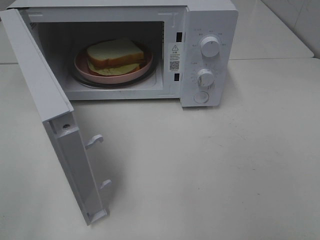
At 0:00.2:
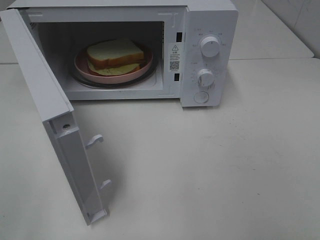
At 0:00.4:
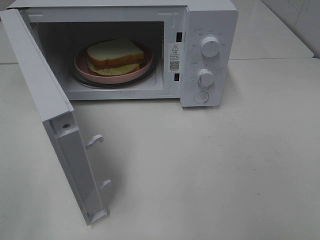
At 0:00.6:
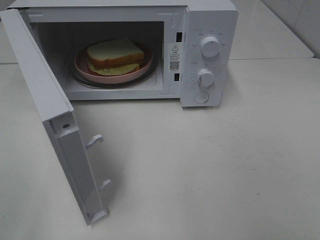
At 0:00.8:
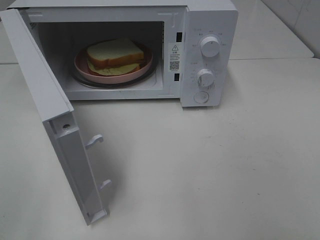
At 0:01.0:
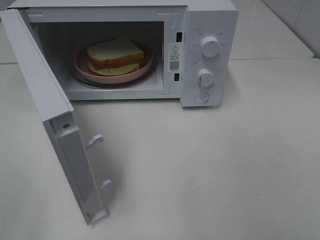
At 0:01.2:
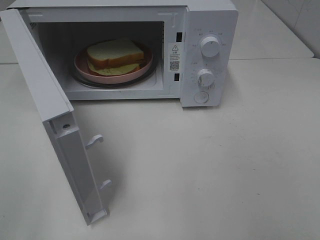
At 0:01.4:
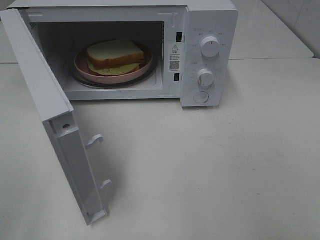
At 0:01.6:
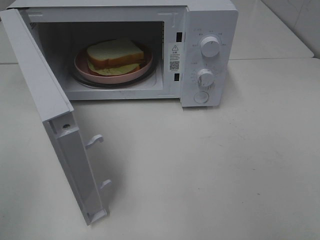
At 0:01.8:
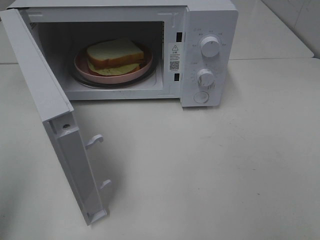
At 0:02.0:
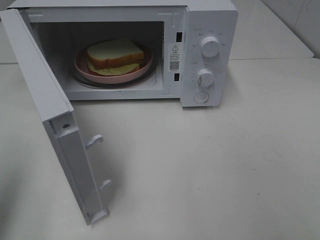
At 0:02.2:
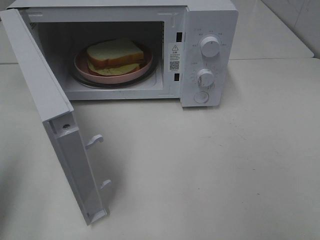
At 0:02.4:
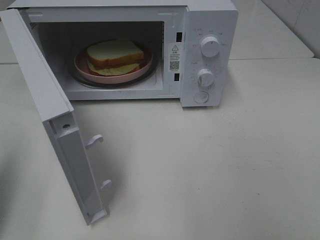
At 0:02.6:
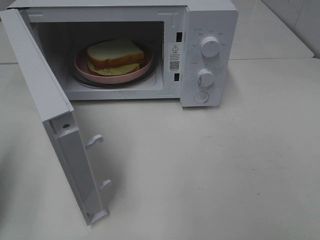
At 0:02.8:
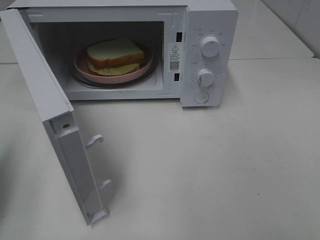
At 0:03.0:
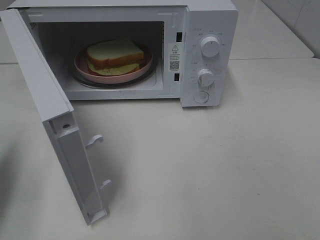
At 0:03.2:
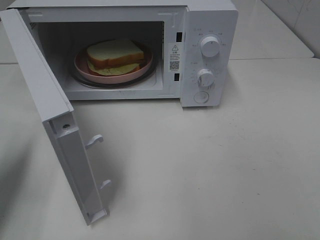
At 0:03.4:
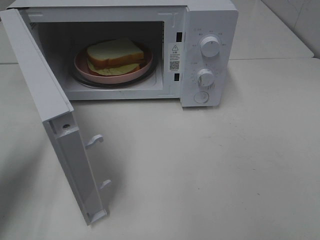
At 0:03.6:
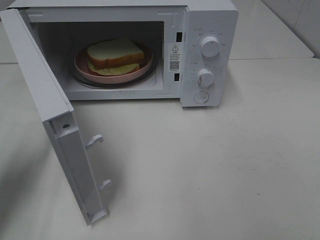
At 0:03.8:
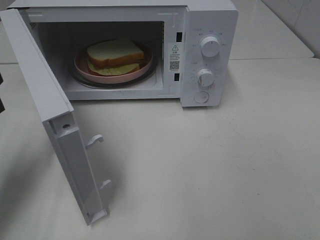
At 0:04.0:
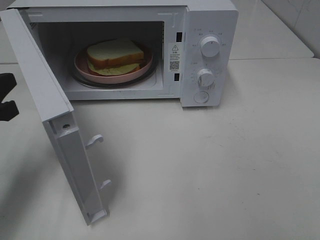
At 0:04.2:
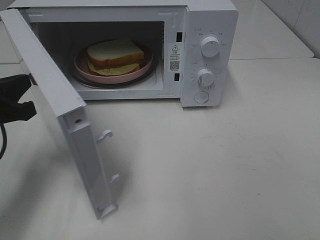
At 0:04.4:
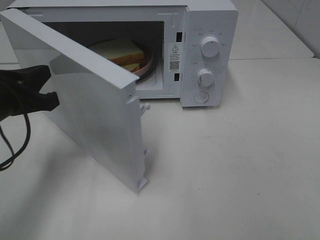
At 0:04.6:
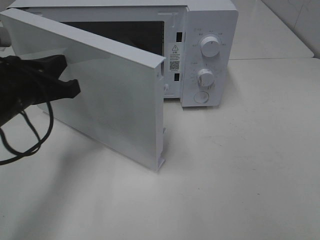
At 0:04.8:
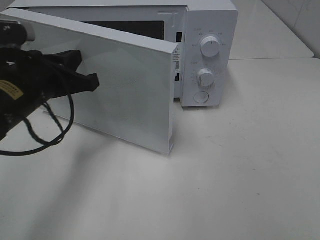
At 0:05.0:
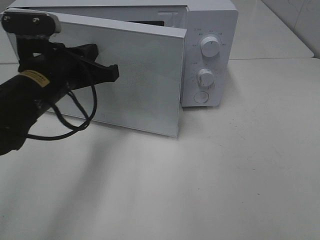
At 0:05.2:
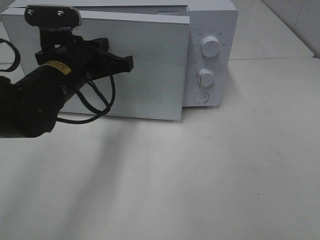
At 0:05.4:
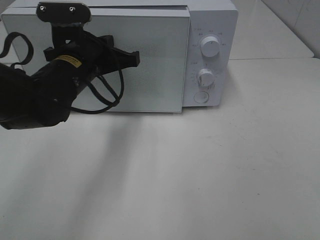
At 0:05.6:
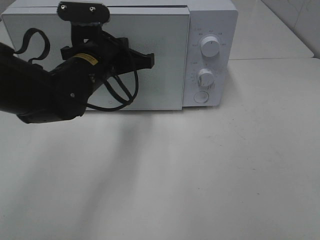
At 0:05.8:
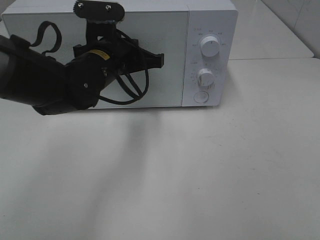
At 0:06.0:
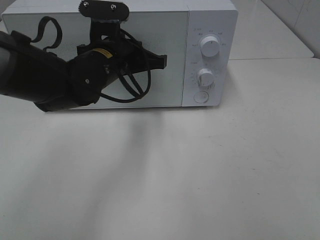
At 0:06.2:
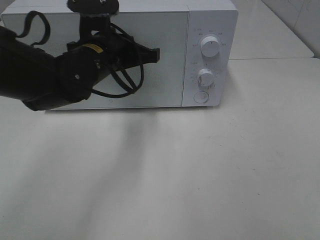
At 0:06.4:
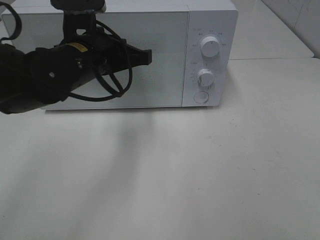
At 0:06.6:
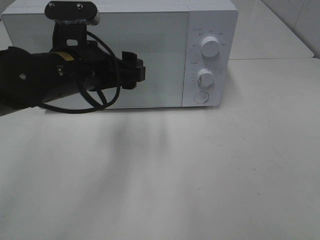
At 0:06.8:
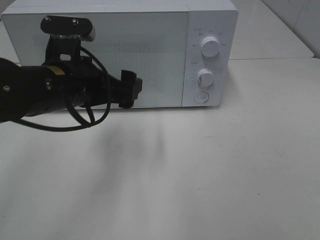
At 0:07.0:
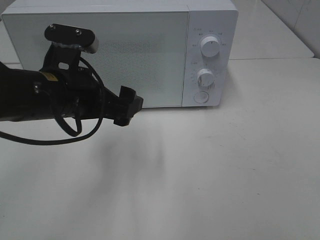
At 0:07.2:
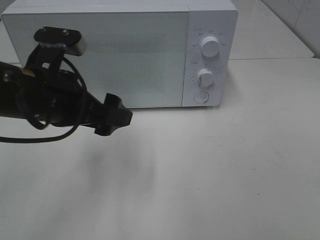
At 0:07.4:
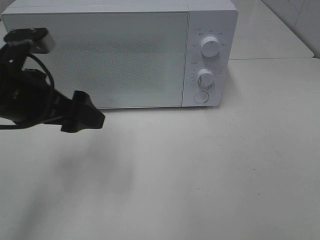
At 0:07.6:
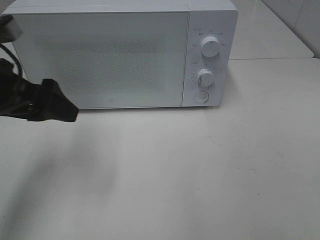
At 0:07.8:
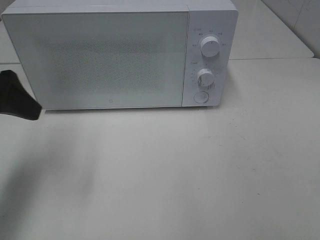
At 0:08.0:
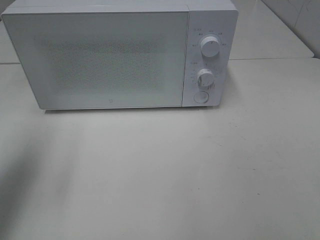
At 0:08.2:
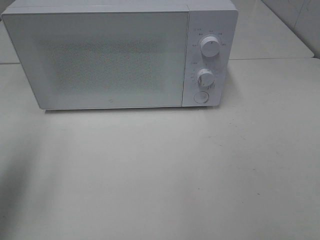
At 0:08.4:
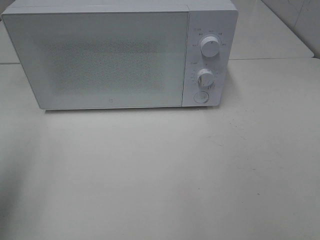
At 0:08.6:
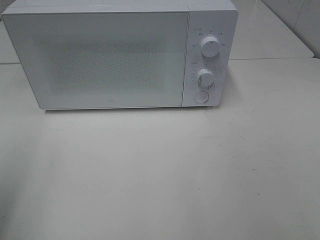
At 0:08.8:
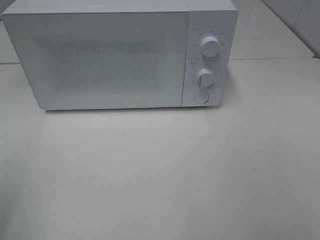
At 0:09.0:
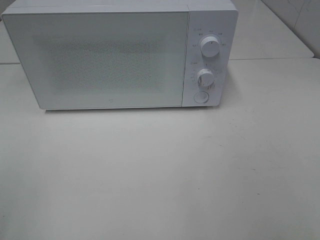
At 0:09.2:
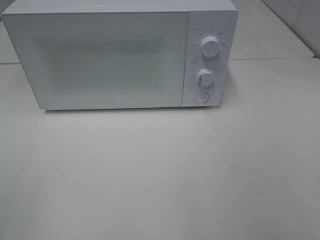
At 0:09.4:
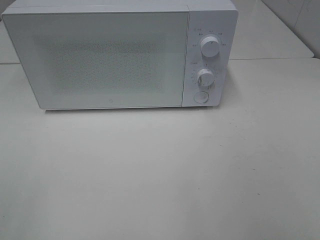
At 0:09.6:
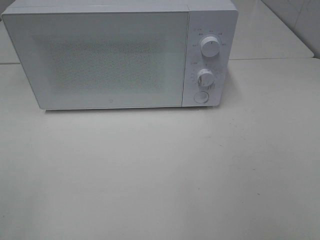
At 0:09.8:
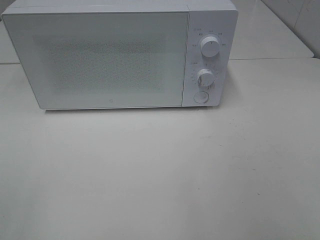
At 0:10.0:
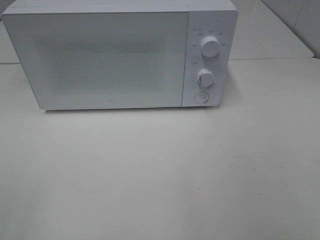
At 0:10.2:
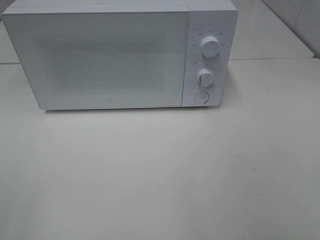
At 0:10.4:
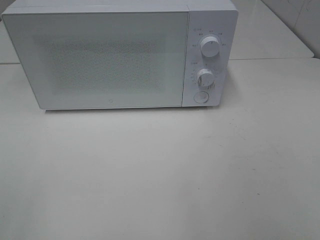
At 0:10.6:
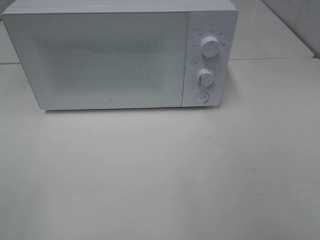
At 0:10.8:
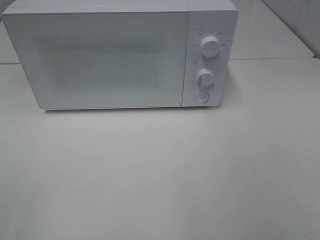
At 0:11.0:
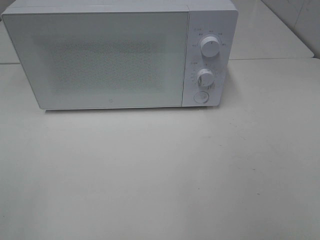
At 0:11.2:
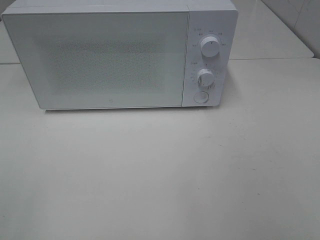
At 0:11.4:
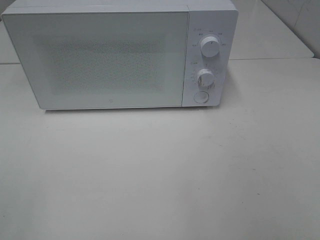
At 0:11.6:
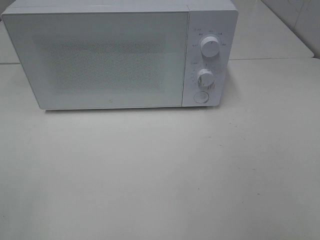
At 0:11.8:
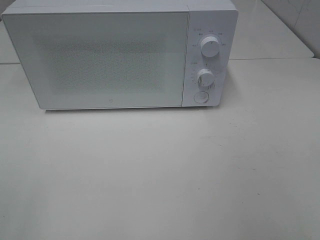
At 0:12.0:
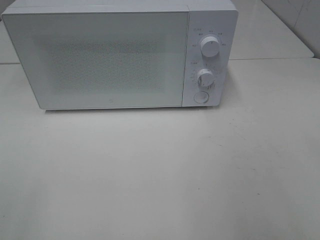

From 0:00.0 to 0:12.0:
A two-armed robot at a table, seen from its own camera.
Task of the whole recording: Heat Sandwich.
Step, from 0:00.0 to 0:06.6: Left hand: close the microwave door.
From 0:01.6 to 0:03.0: The left gripper travels forward and downward by approximately 15 cm, and closes its fingers.
From 0:03.0 to 0:04.4: The left gripper goes about 10 cm to the right and forward.
From 0:04.4 to 0:06.0: The left gripper travels to the right and forward by approximately 20 cm.
From 0:06.0 to 0:07.6: The left gripper goes about 20 cm to the left and backward, and opens.
From 0:07.6 to 0:09.0: The left gripper is displaced backward and to the left by about 25 cm.

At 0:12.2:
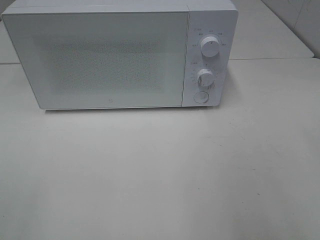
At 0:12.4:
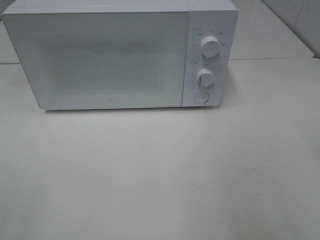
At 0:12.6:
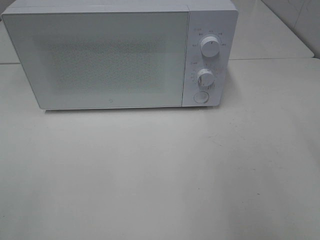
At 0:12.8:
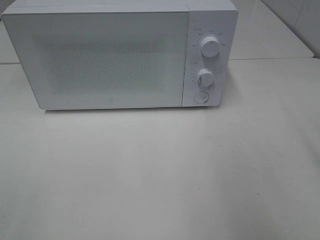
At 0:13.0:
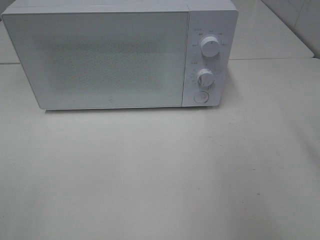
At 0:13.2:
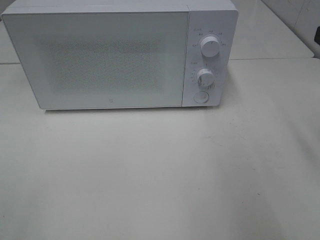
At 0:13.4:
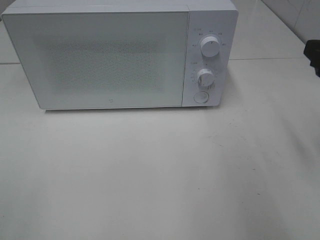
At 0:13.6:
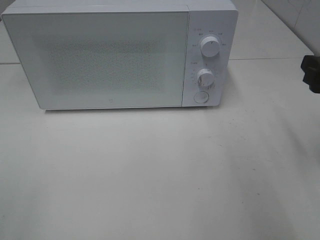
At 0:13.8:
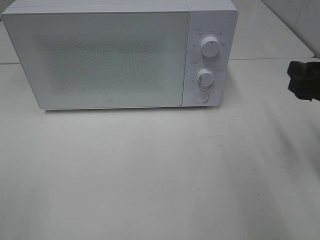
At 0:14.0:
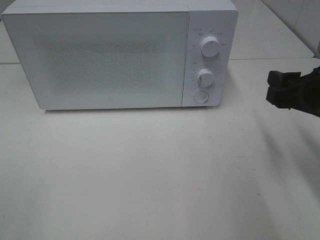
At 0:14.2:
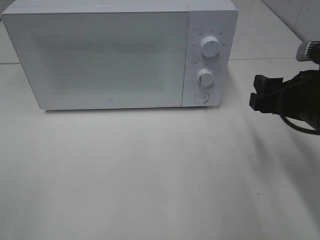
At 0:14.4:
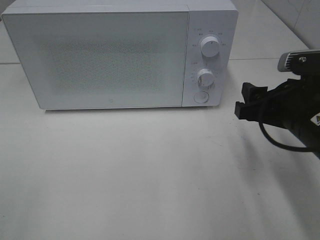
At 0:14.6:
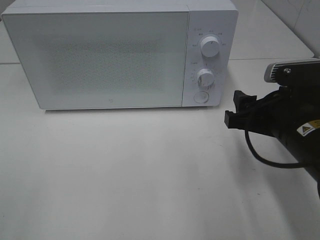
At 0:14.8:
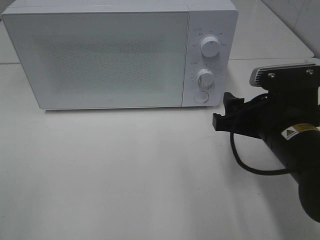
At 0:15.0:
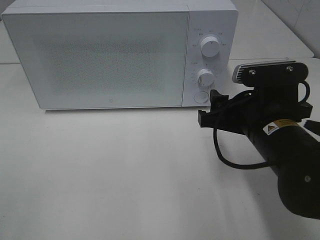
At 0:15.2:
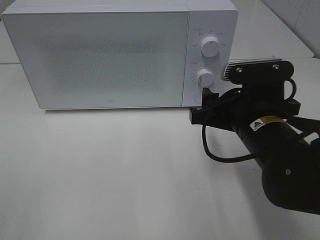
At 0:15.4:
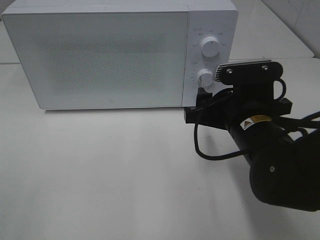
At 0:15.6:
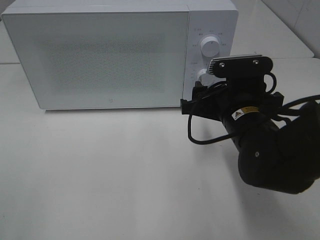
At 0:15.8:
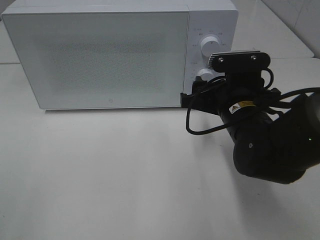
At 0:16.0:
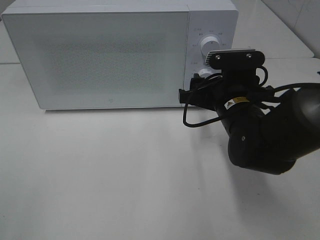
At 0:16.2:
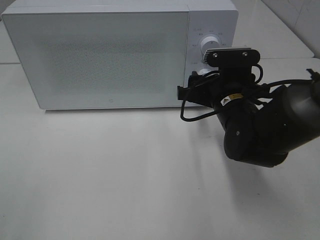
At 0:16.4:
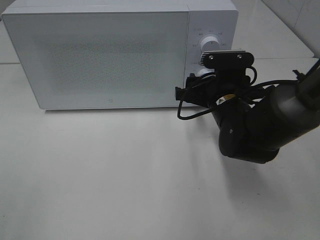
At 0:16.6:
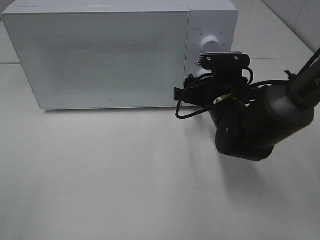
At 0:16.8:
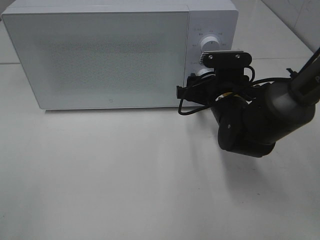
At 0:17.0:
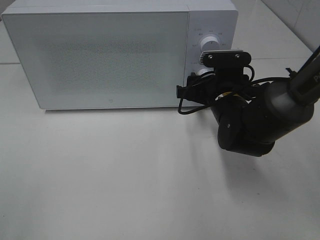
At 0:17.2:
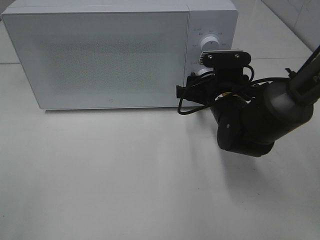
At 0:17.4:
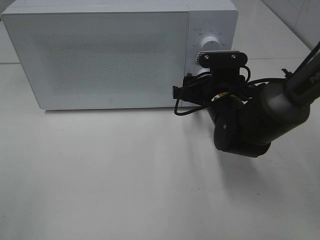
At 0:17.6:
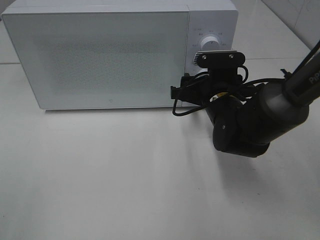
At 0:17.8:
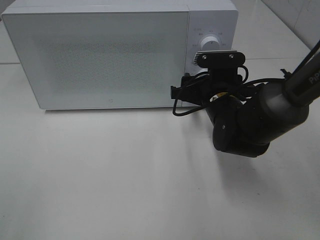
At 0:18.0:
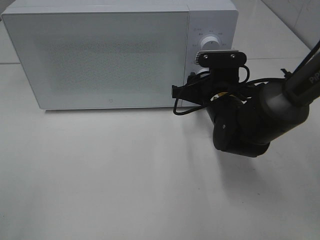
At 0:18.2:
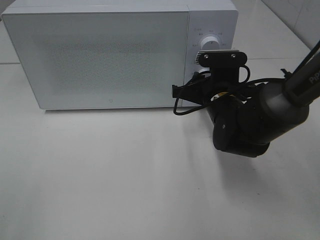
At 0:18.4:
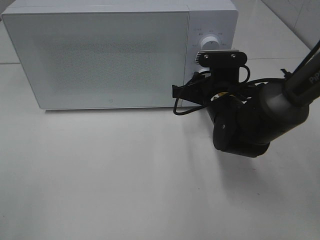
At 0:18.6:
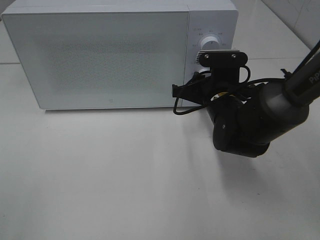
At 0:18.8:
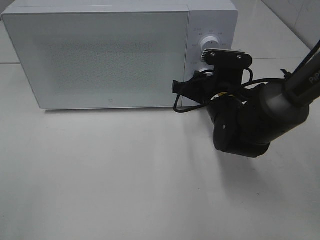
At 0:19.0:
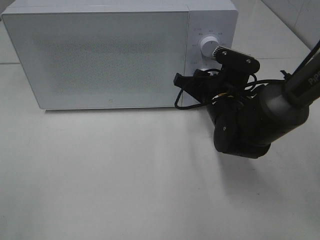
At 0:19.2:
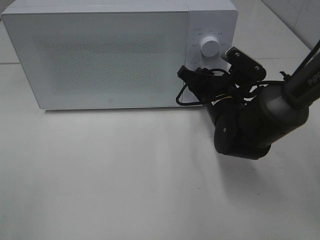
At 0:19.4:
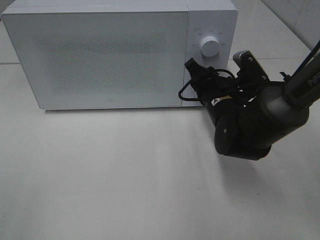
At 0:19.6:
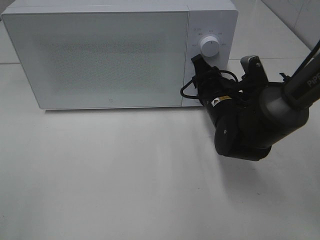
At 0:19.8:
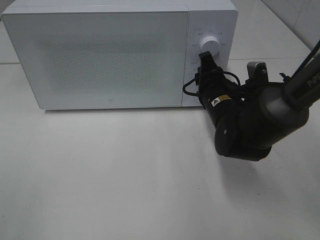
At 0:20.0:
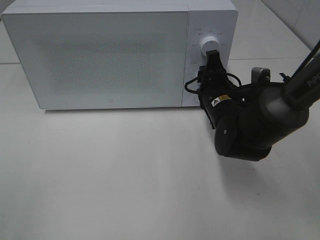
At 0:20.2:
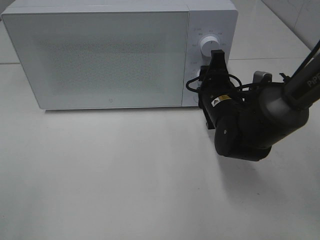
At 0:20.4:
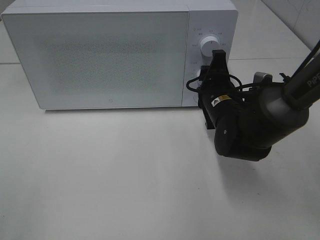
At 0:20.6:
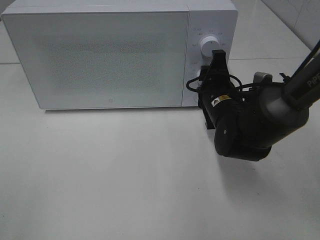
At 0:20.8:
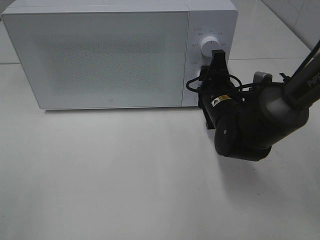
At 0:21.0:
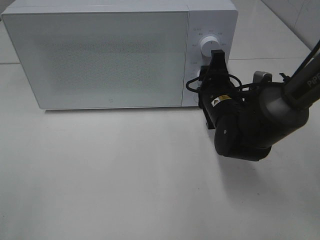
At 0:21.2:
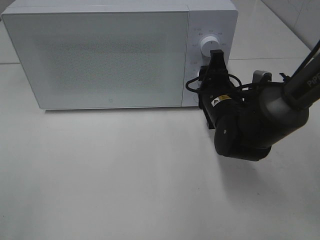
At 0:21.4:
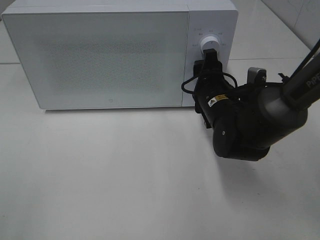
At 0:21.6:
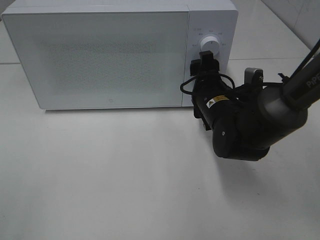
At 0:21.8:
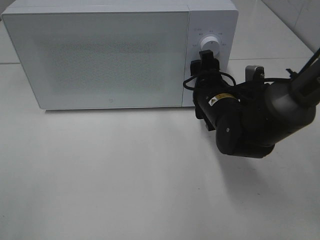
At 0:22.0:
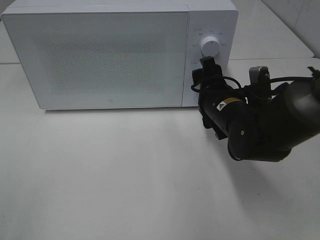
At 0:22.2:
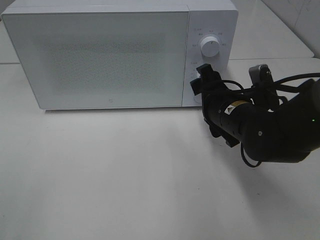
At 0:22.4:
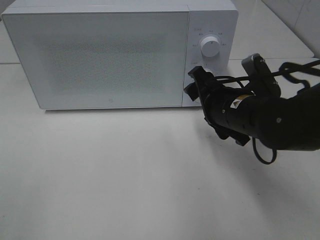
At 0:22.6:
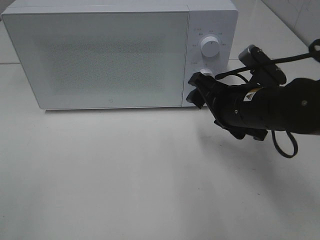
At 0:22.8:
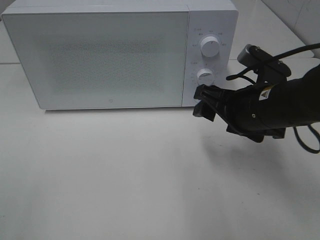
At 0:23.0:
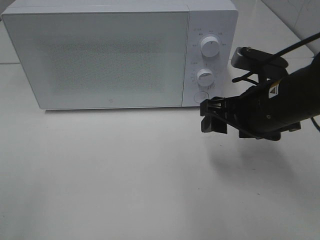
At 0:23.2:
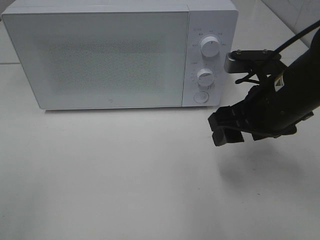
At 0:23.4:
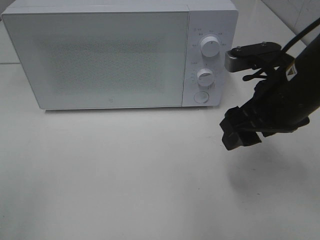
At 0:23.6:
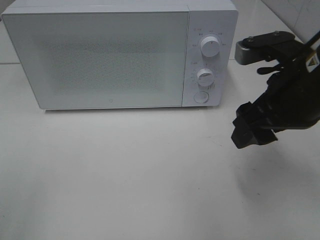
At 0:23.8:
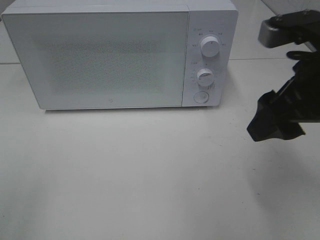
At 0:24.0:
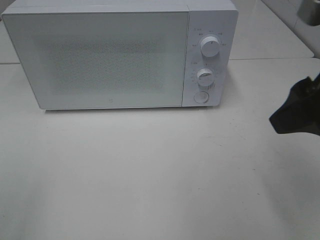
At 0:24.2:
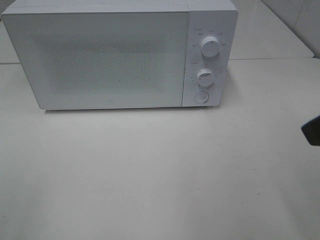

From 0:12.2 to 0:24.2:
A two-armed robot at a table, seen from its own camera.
Task of the whole recording: Heat Sandwich.
Step, from 0:12.2 to 0:22.2: Right hand: twist timer button.
From 0:12.2 to 0:13.8: The right gripper is displaced forward and downward by approximately 15 cm.
From 0:13.8 to 0:15.2: The right gripper travels to the left and downward by roughly 15 cm.
From 0:15.2 to 0:16.6: The right gripper moves forward, about 10 cm.
From 0:16.6 to 0:18.2: Both grippers stay about where they are.
From 0:19.8 to 0:21.2: The grippers stay close to where they were, moving slightly.
From 0:21.2 to 0:22.6: The right gripper moves backward, roughly 5 cm.
From 0:22.6 to 0:24.2: The right gripper heads upward, backward and to the right, covering roughly 20 cm.
